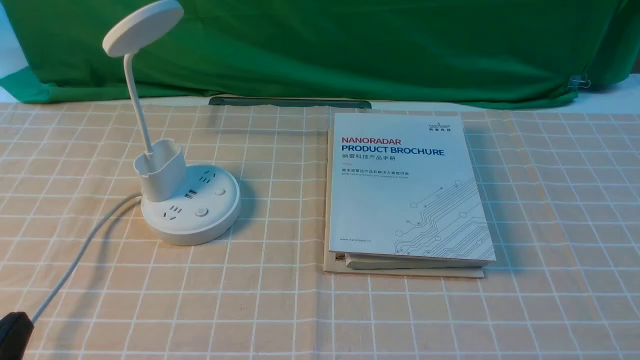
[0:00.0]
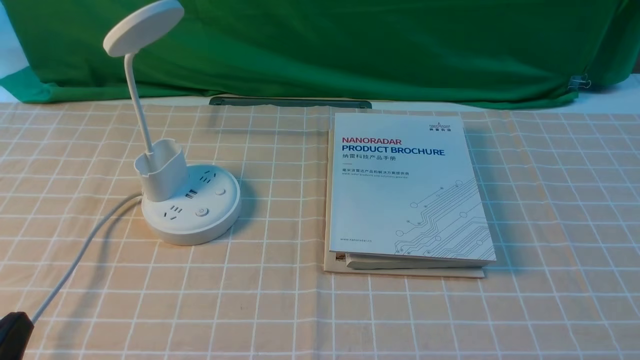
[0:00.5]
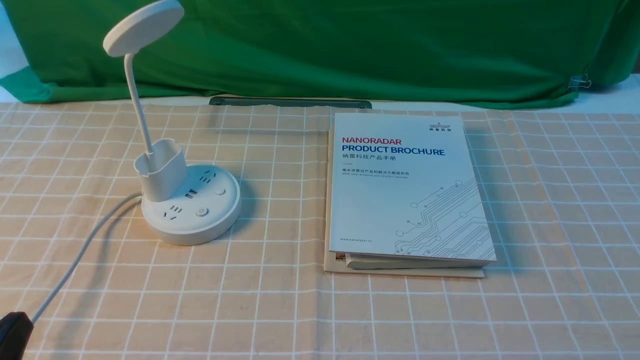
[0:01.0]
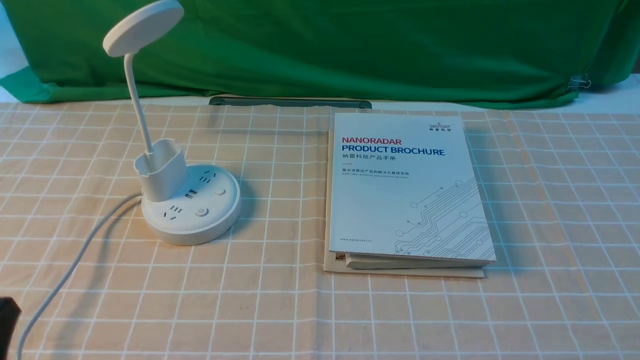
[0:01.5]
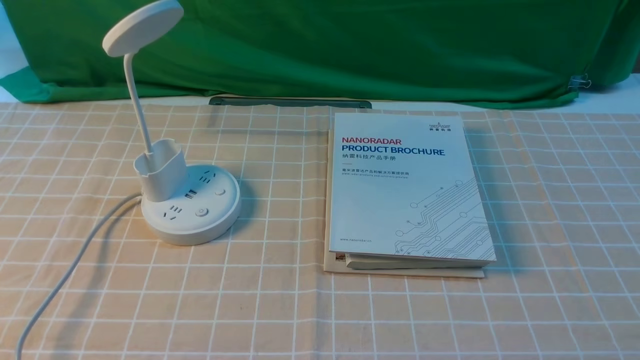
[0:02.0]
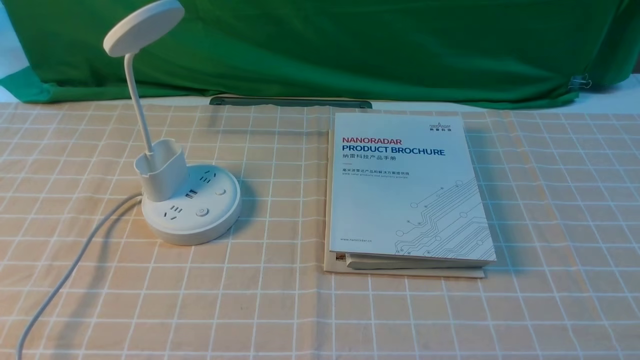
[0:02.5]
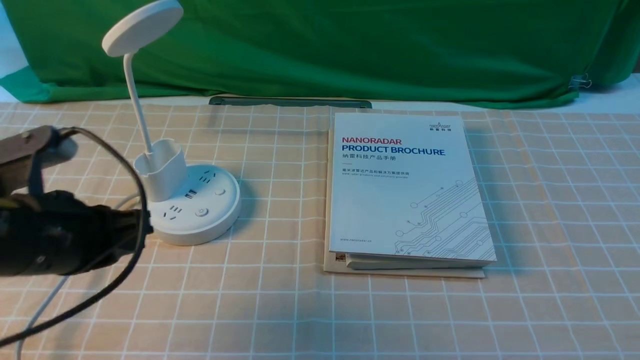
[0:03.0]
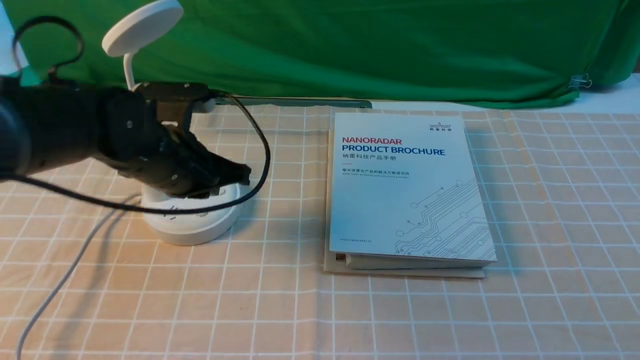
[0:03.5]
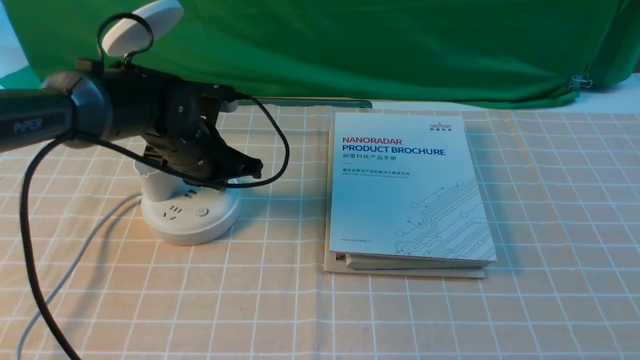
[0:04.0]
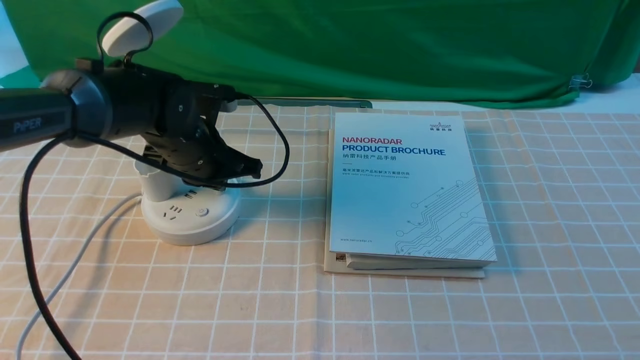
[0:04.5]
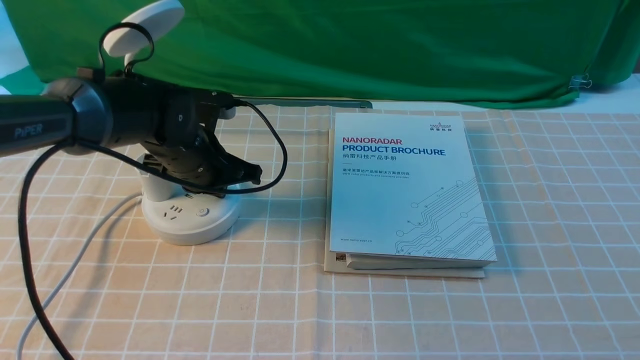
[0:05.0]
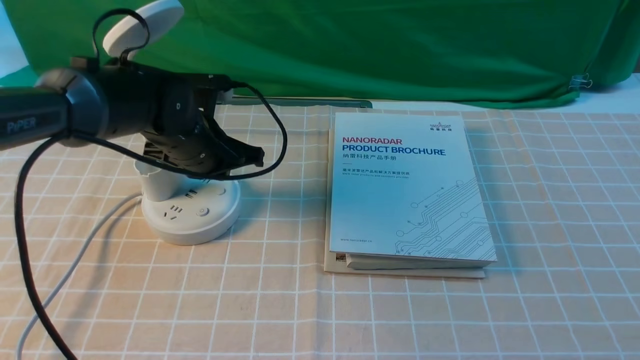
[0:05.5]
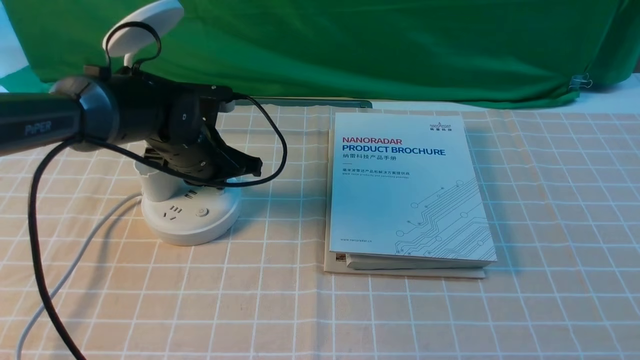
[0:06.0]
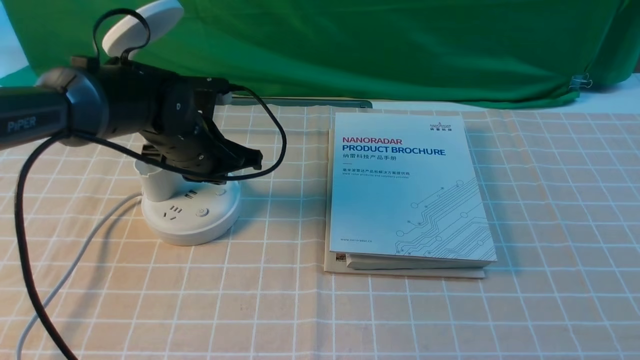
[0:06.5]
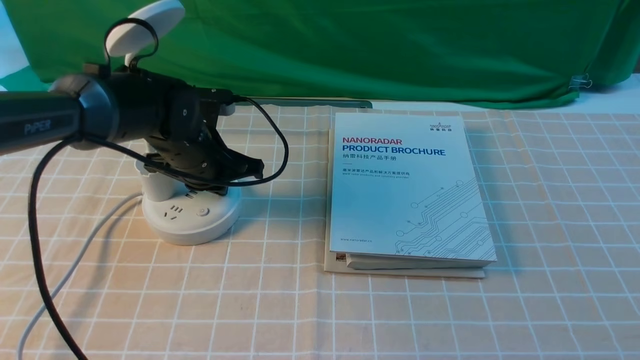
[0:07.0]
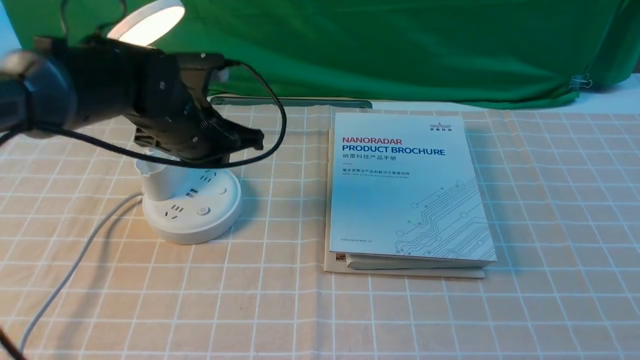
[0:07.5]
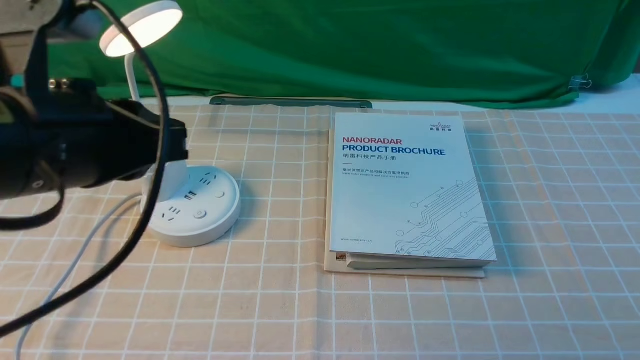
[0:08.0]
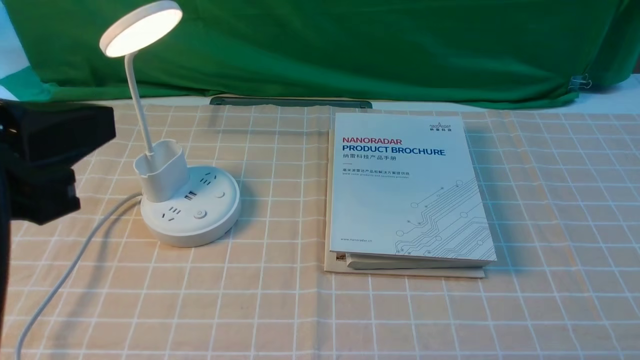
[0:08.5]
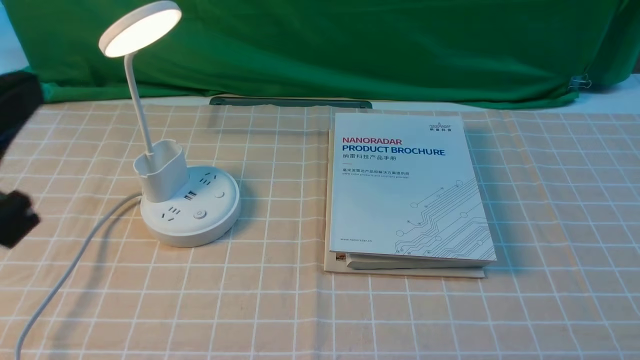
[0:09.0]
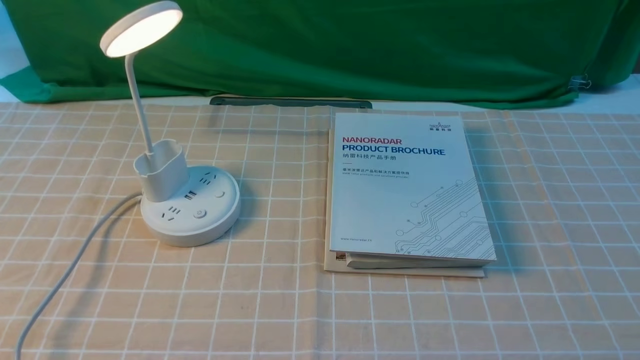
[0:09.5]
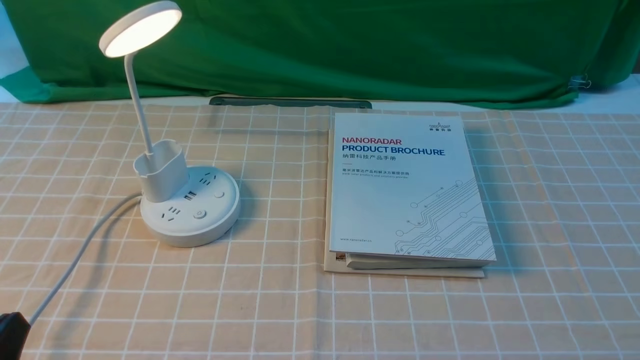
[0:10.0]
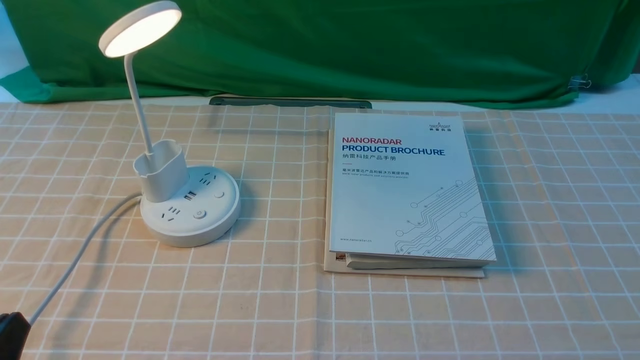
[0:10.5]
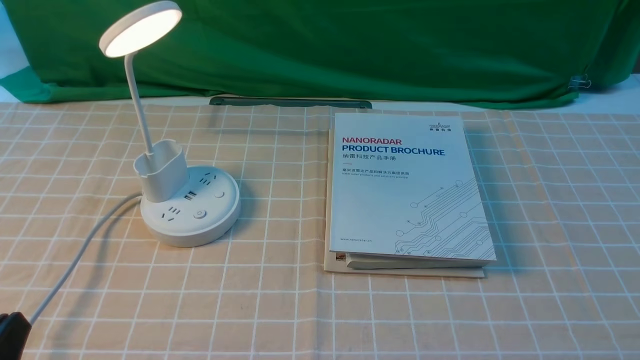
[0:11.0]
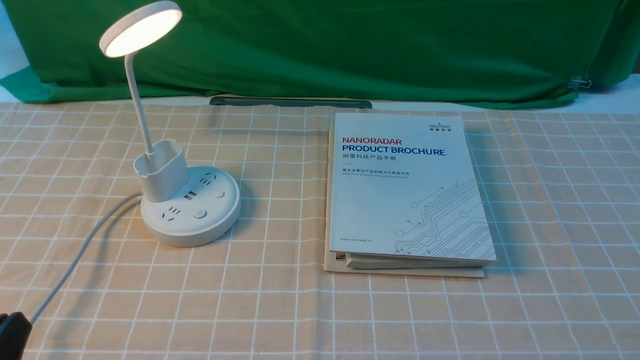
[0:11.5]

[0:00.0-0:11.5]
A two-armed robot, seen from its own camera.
Step, 0:00.0 to 0:07.5: use the left arm to press the button switch on the lamp holder.
0:02.0 to 0:04.0: The left gripper moves forward, about 35 cm.
0:04.0 to 0:06.0: The two grippers keep their place.
0:06.0 to 0:07.5: The left gripper is displaced upward by some 5 cm.
0:07.5 to 0:09.5: The left gripper heads backward and to the left, covering about 35 cm, and opens up.
